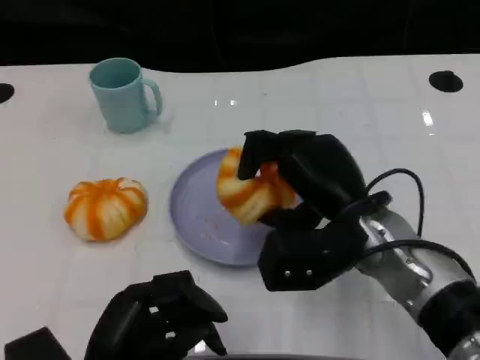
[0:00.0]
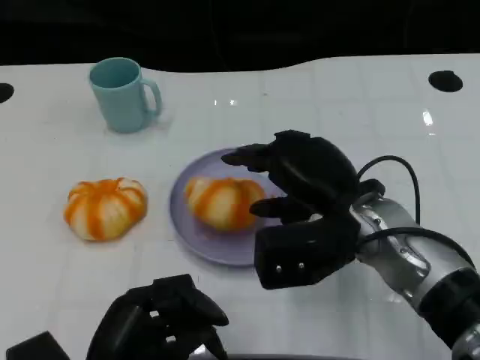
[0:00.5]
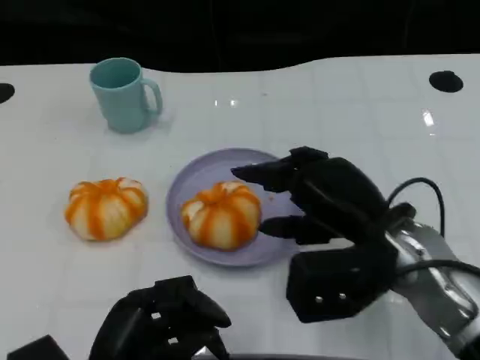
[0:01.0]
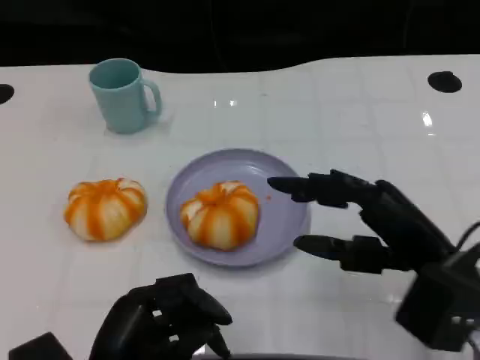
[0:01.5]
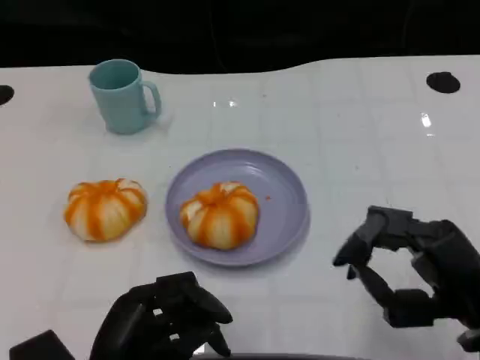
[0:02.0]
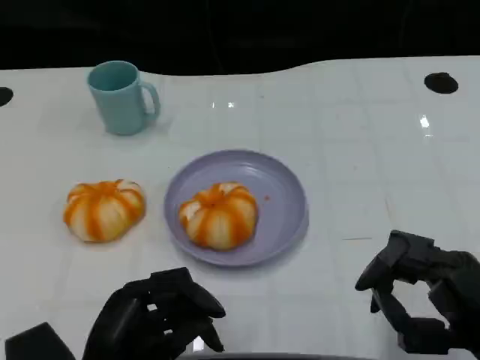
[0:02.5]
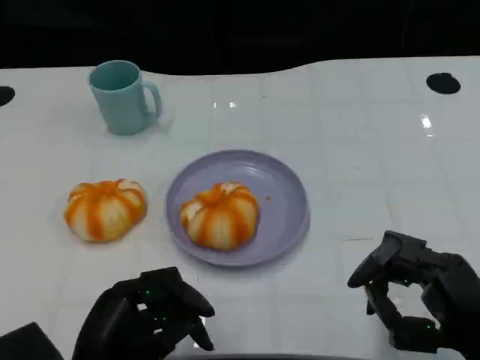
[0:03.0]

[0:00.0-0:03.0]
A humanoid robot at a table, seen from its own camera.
Task of the whole recording: Grasp the bread from the table and place it into the plate.
0:00.0 to 0:01.5: The right hand heads to the right and backward, covering about 10 cm.
0:01.5 to 0:03.0: The right hand travels backward by roughly 5 cm.

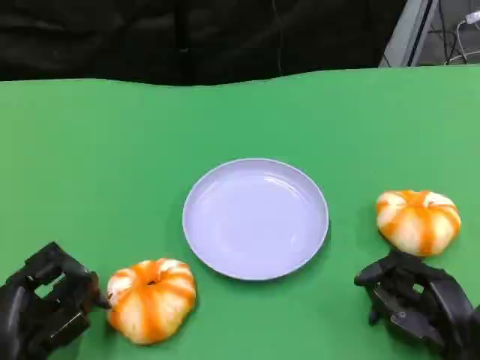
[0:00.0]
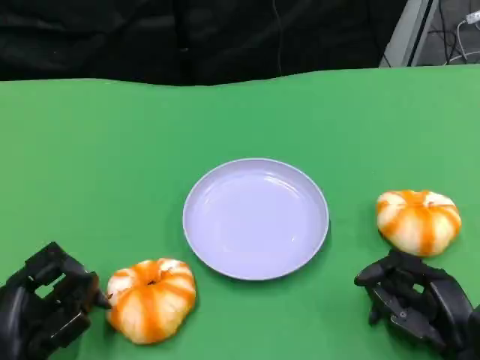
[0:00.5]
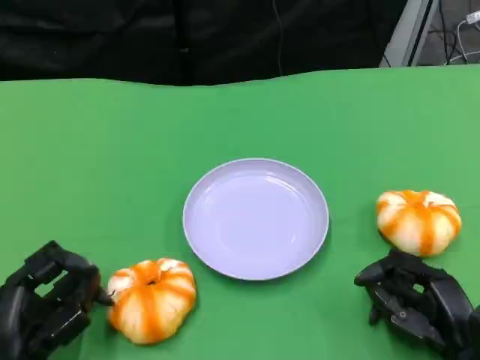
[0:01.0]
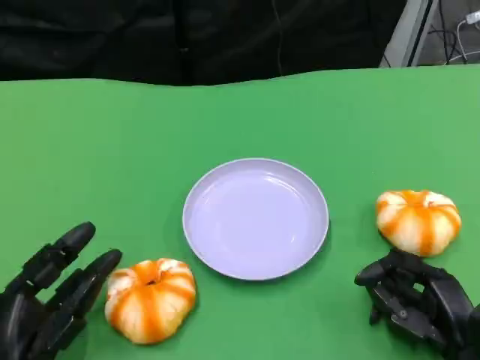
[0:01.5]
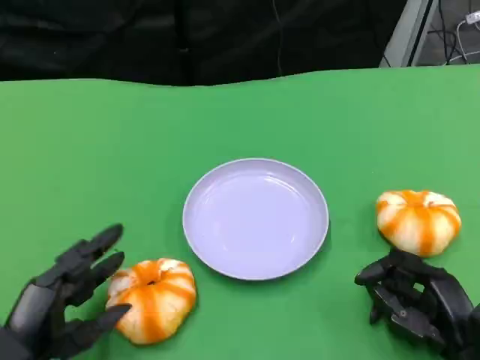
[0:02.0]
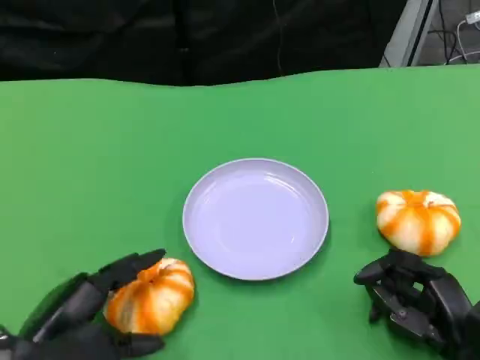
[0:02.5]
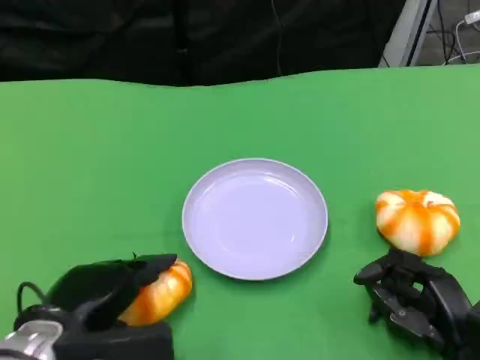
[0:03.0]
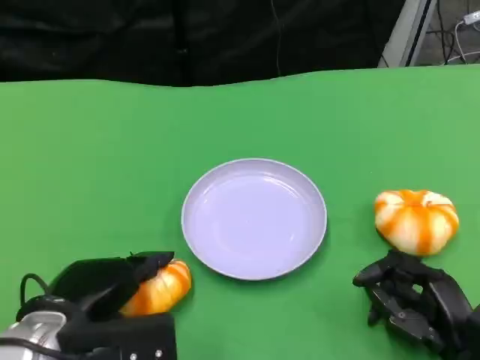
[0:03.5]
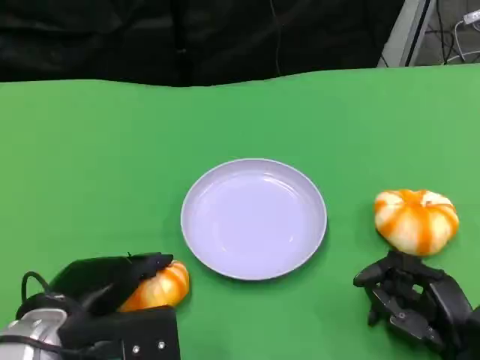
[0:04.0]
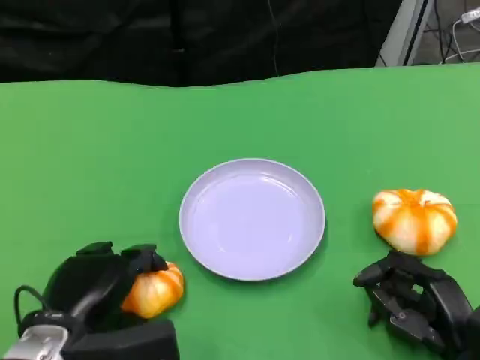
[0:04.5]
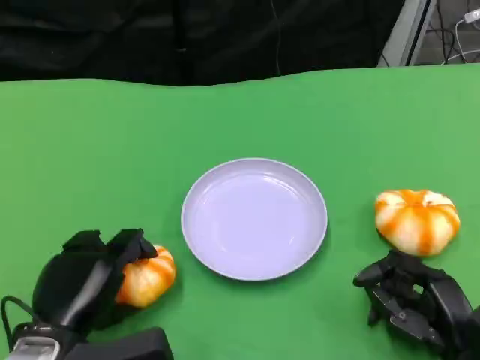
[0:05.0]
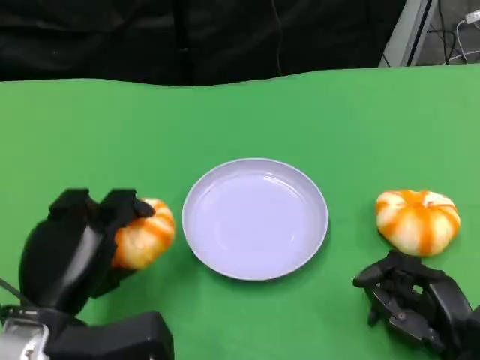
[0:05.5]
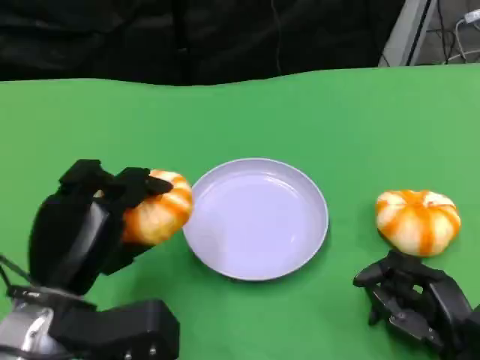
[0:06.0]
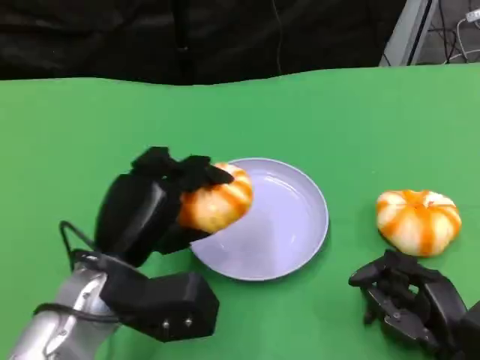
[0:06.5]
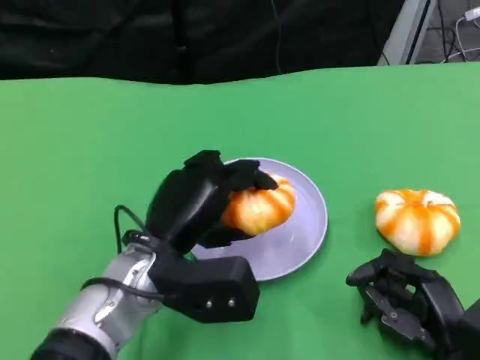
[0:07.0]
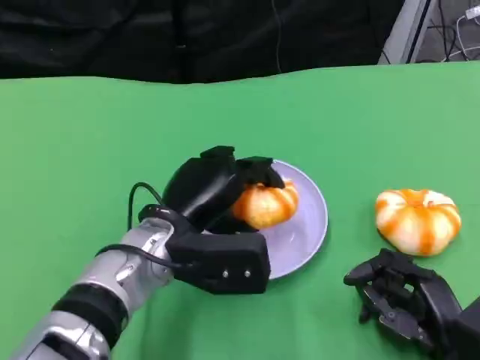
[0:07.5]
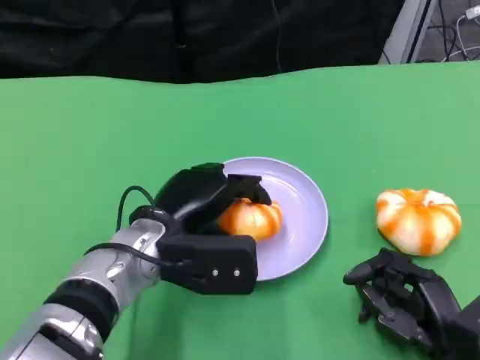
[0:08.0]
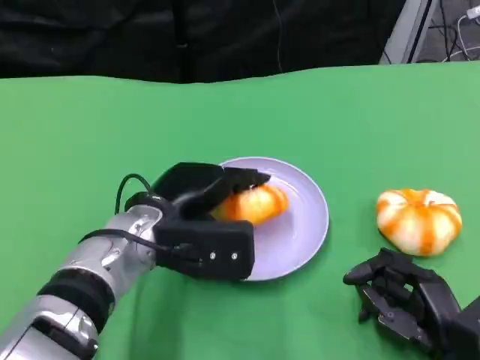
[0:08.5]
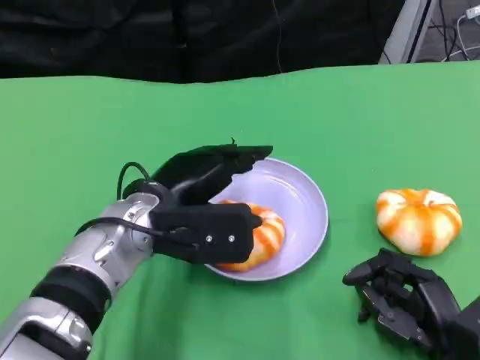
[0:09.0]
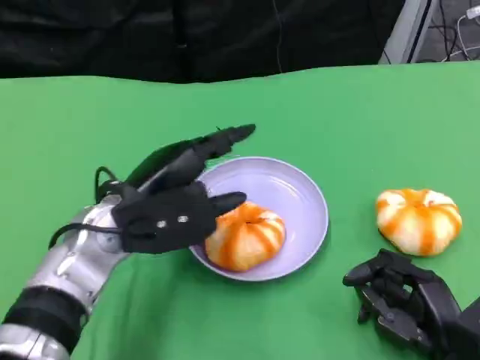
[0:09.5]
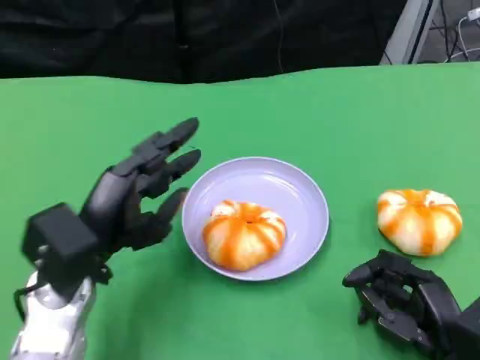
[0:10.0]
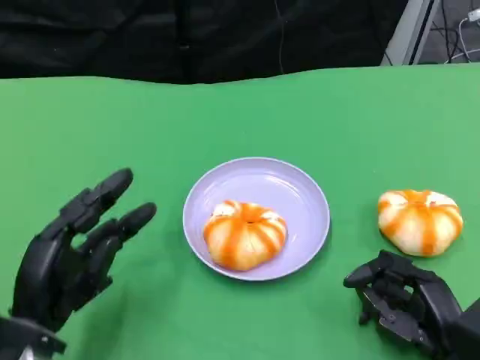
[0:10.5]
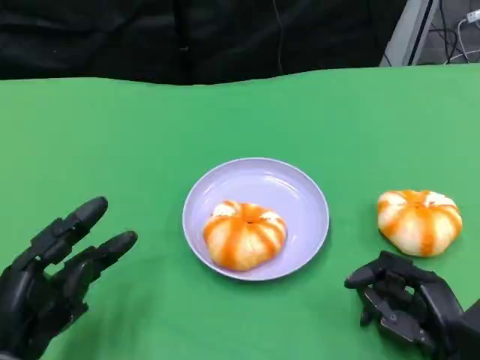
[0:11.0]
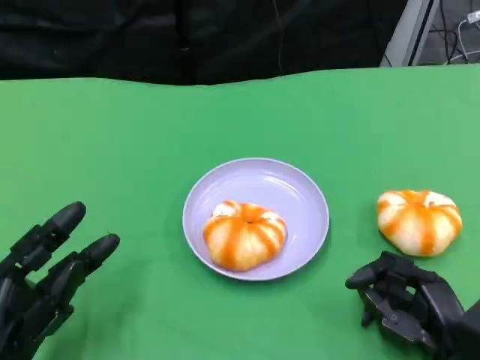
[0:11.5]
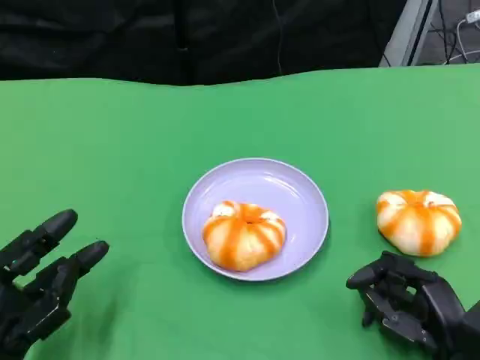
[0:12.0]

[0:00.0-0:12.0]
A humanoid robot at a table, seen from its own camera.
Task of the whole recording: Grasp the bread from the table and place it into the plate.
0:02.0 to 0:04.0: The left hand ends up about 10 cm from where it was.
0:06.0 to 0:08.0: The left hand heads to the right and forward, covering about 10 cm.
0:08.0 to 0:10.0: The left hand moves to the left, approximately 10 cm.
0:10.0 to 0:12.0: The left hand is displaced backward, to the left and downward by about 15 cm.

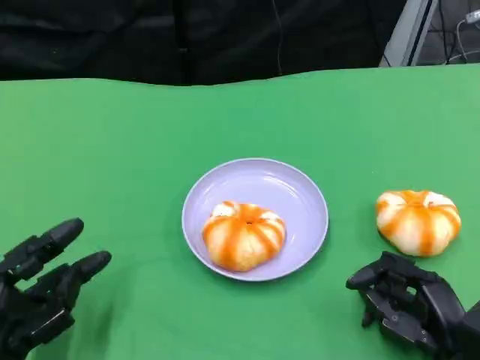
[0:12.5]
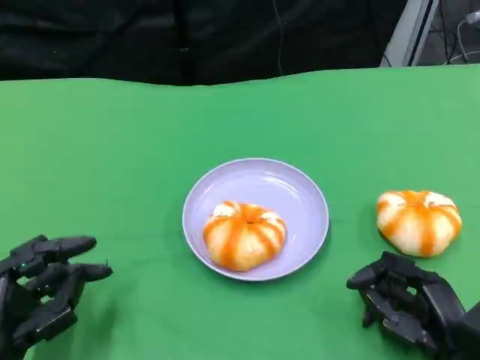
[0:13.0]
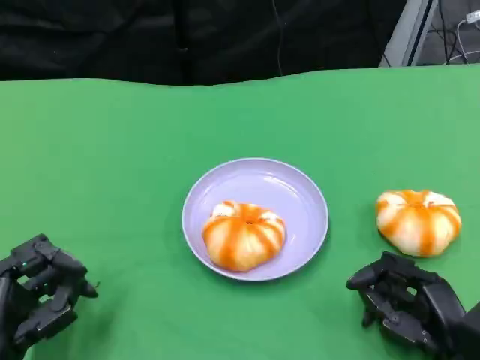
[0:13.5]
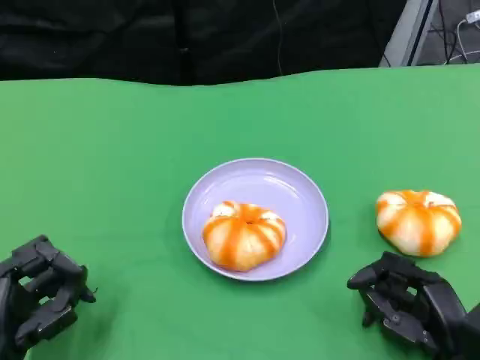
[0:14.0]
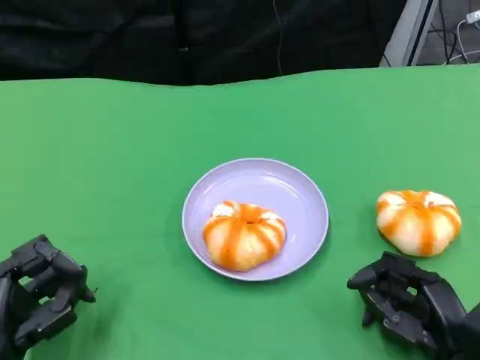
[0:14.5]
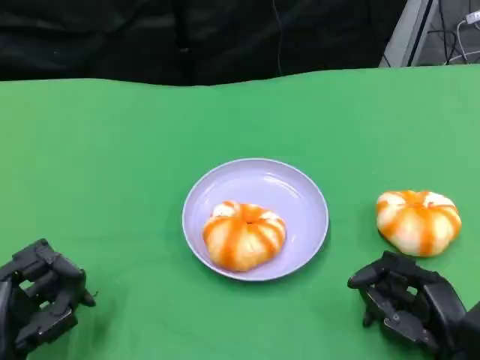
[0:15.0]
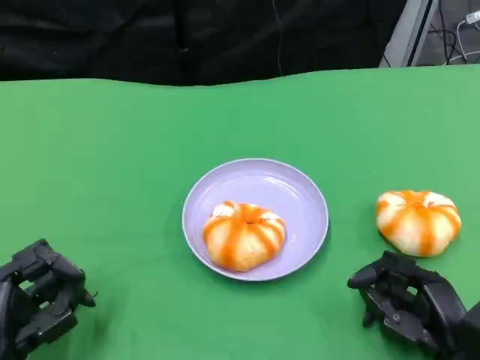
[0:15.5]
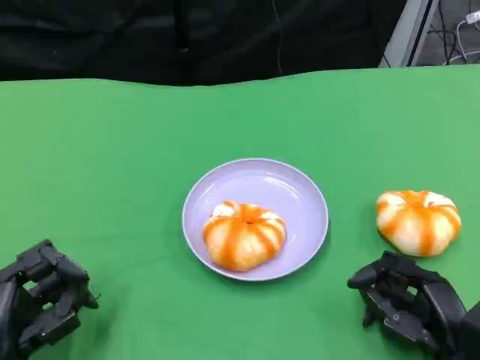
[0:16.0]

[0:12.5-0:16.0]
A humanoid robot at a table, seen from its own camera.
Task of the whole recording: Grasp the bread from the table and place it into the plate.
0:12.5 to 0:14.5: There are only small adjustments of the hands.
0:14.5 to 0:16.0: Both hands stay about where they are.

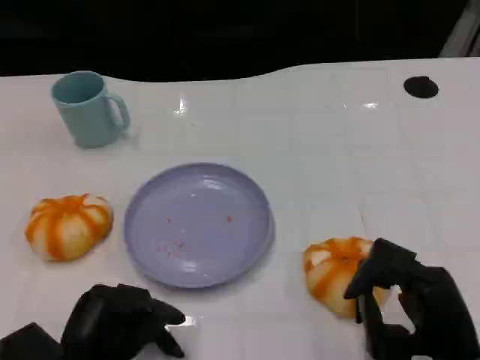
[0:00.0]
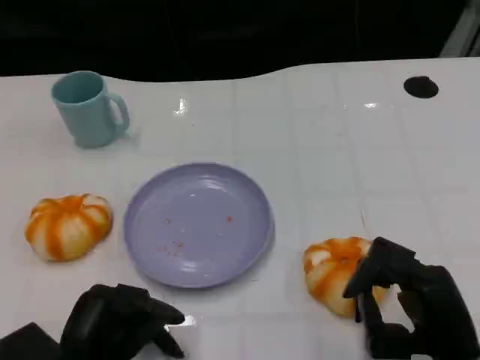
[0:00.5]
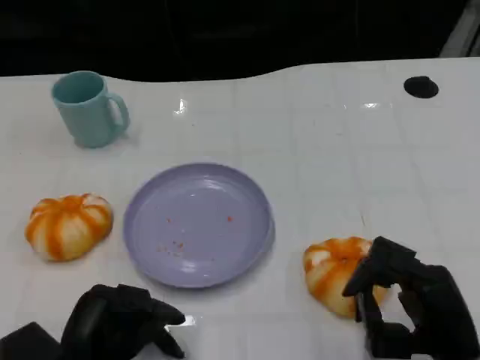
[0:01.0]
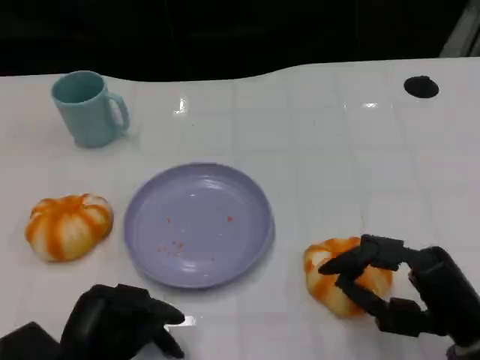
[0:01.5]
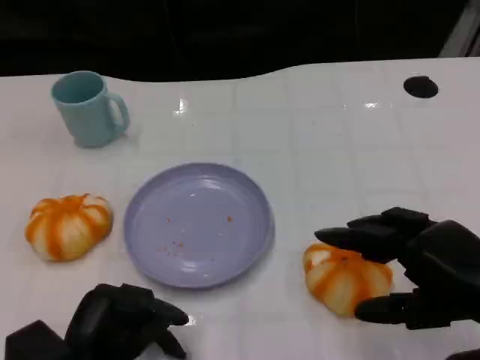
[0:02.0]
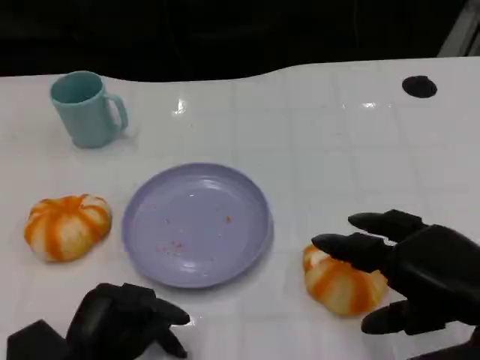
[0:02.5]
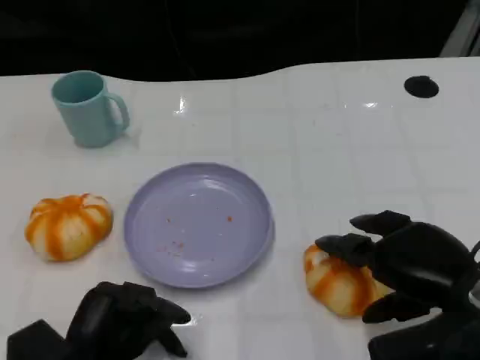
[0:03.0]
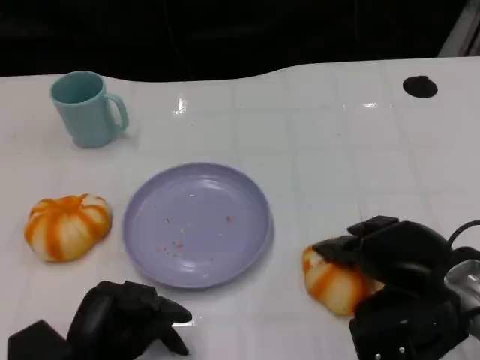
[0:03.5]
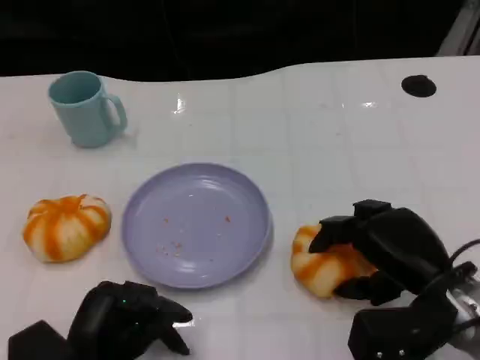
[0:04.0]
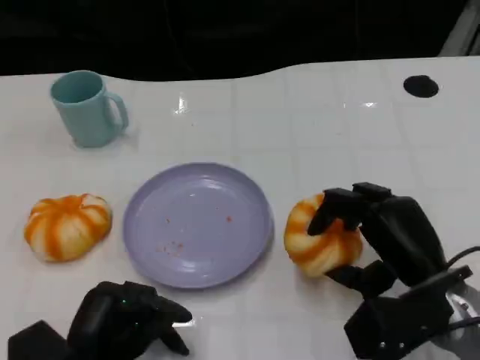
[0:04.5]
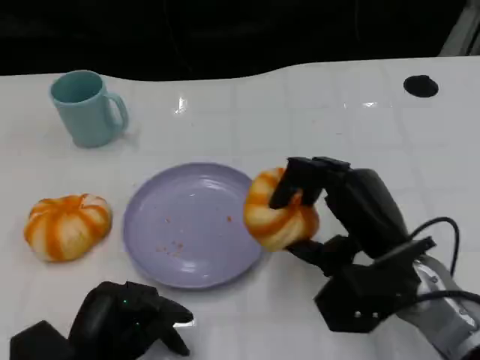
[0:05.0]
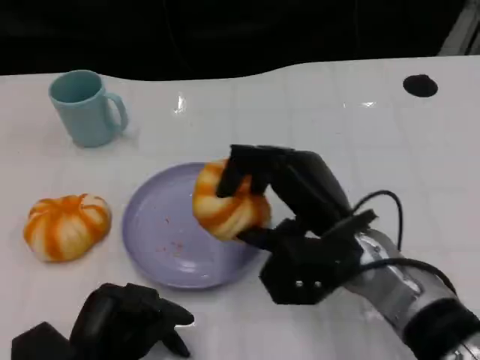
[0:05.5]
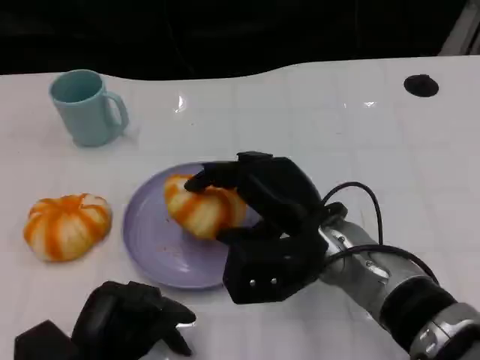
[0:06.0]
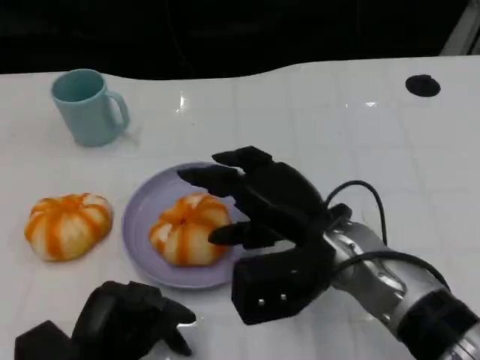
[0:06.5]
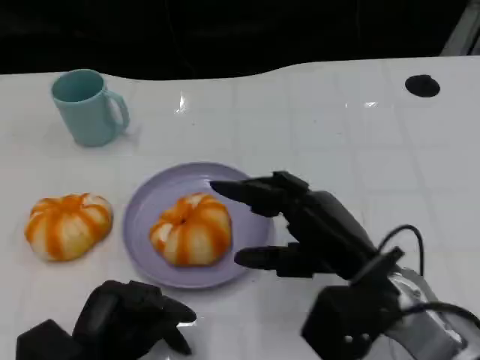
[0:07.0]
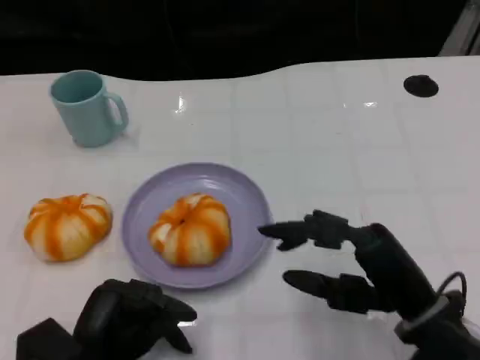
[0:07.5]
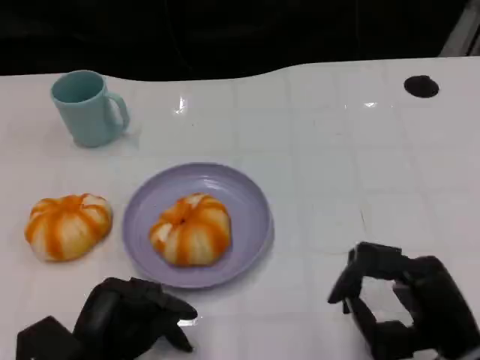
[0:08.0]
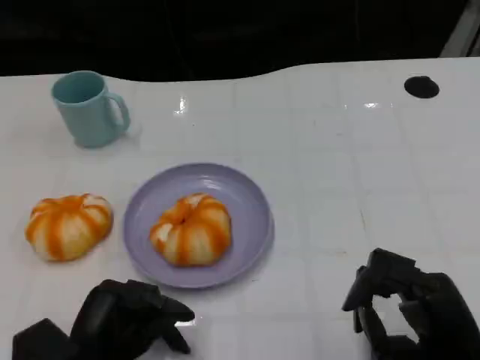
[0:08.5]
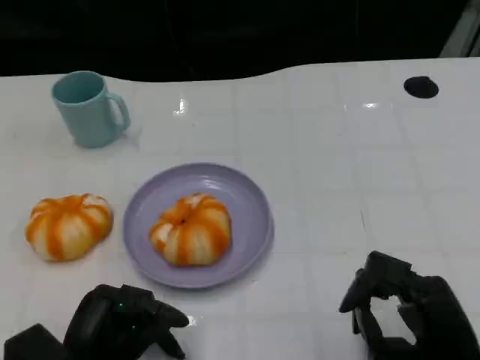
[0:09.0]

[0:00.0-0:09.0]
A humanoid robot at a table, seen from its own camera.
Task of the whole recording: Grasp the bread from the table and place it into the plate.
0:00.0 to 0:02.0: The right hand travels upward by about 10 cm.
0:02.0 to 0:04.5: The right hand heads downward, forward and to the left, covering approximately 10 cm.
0:07.0 to 0:09.0: The right hand moves backward, to the right and downward, some 10 cm.
